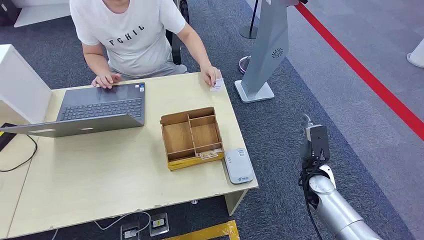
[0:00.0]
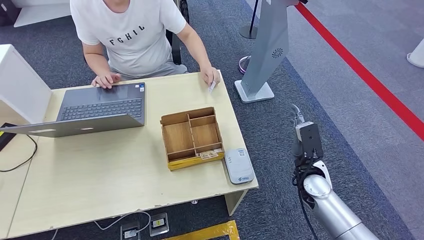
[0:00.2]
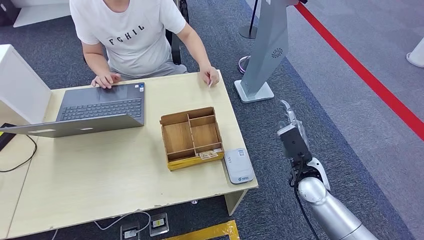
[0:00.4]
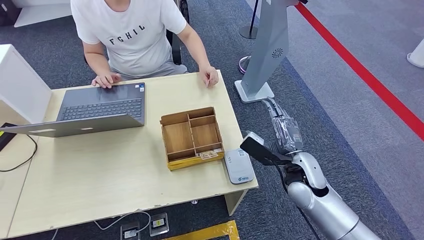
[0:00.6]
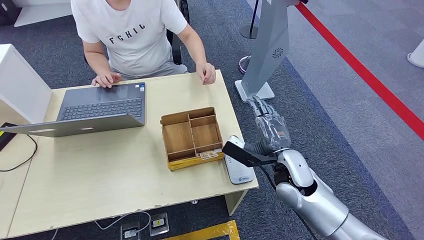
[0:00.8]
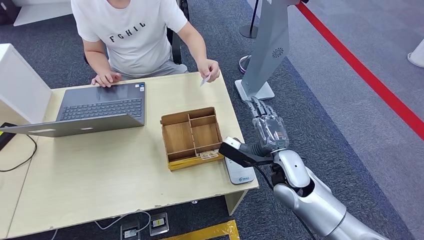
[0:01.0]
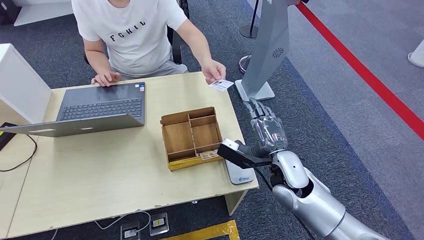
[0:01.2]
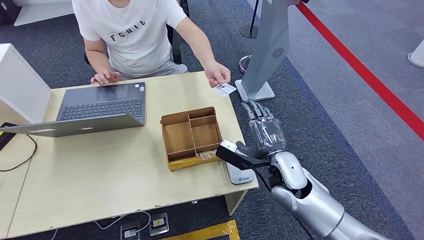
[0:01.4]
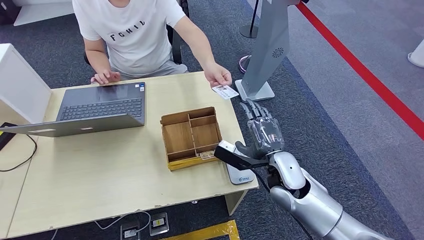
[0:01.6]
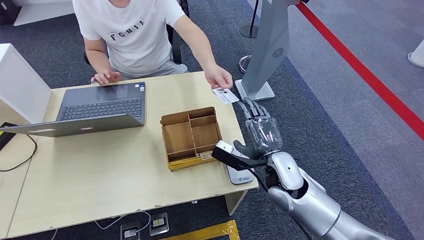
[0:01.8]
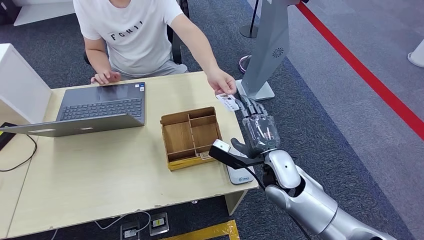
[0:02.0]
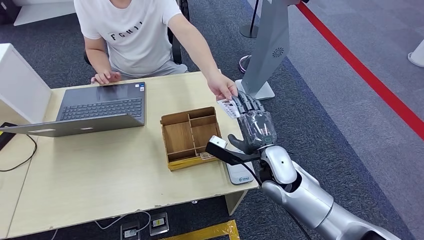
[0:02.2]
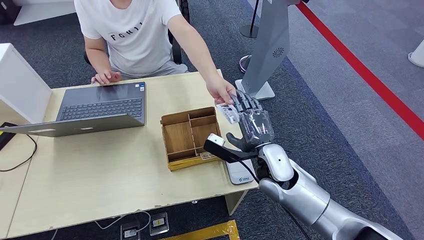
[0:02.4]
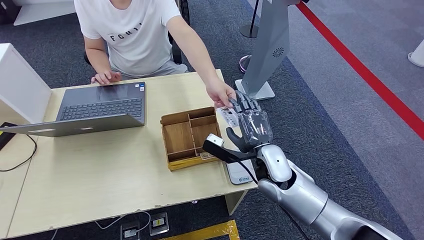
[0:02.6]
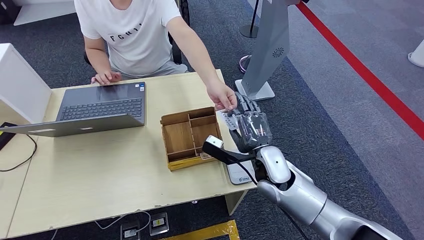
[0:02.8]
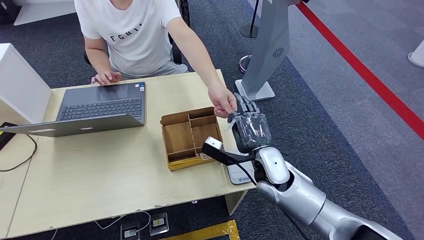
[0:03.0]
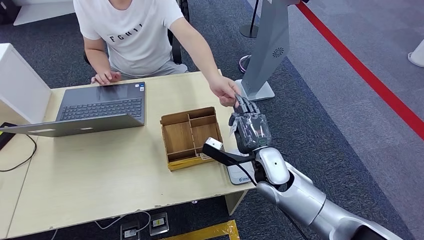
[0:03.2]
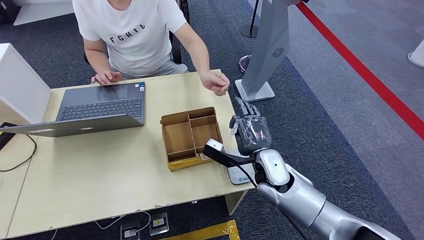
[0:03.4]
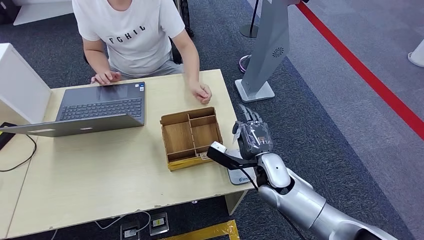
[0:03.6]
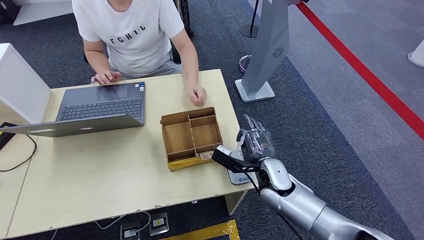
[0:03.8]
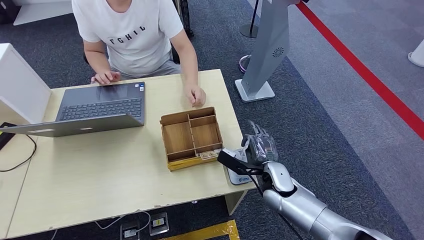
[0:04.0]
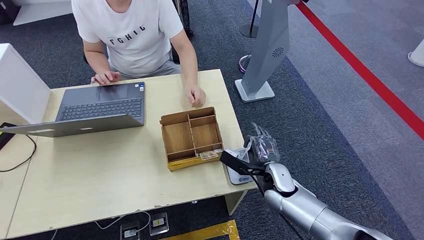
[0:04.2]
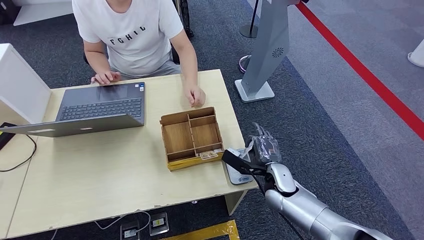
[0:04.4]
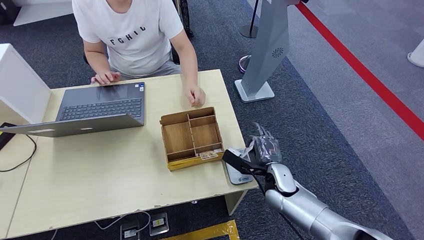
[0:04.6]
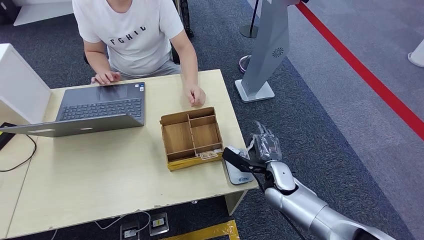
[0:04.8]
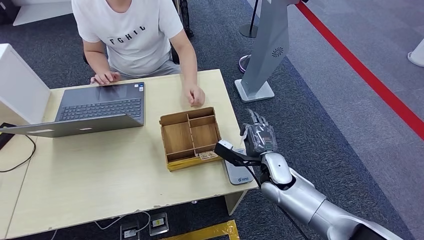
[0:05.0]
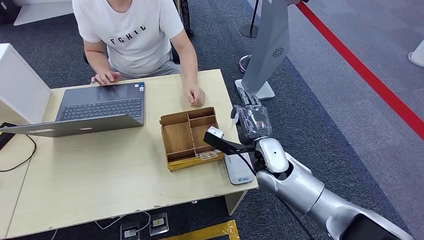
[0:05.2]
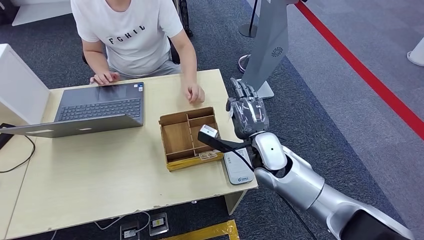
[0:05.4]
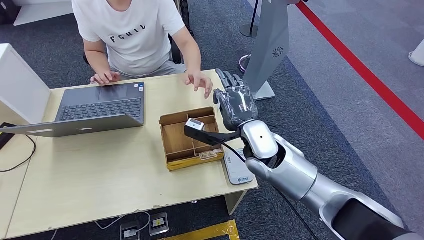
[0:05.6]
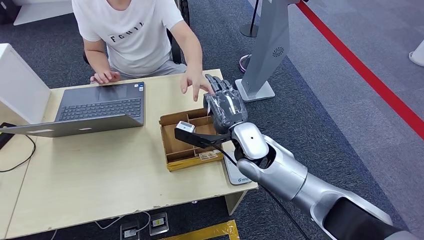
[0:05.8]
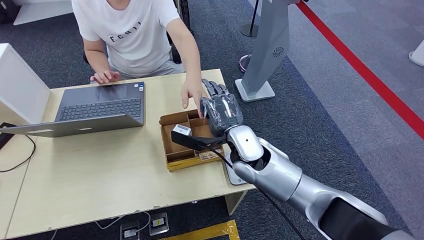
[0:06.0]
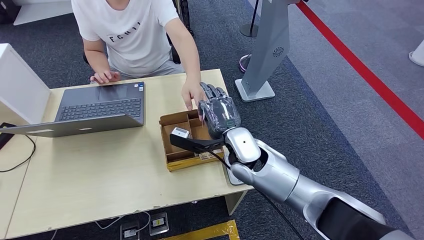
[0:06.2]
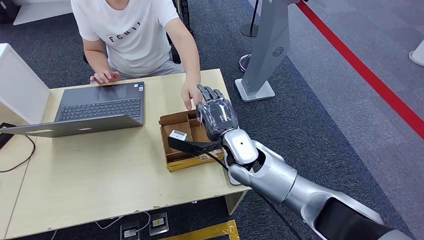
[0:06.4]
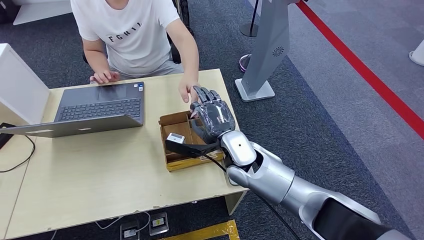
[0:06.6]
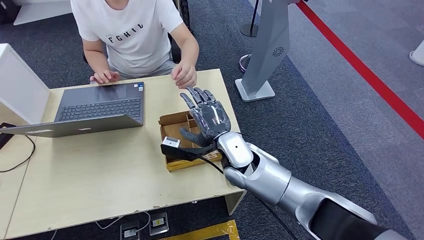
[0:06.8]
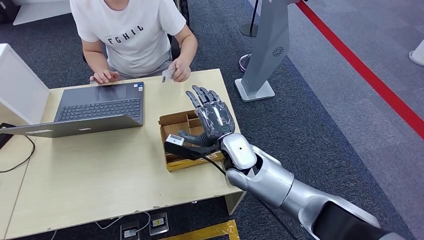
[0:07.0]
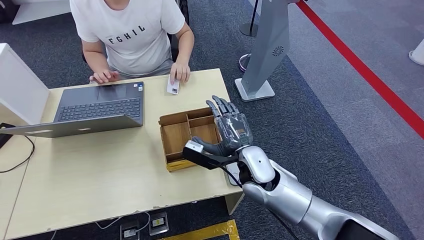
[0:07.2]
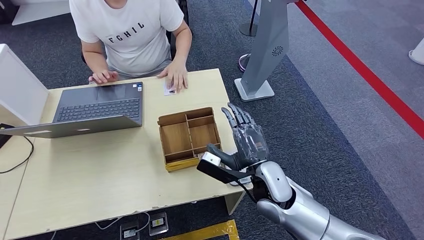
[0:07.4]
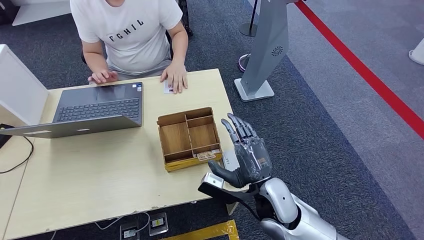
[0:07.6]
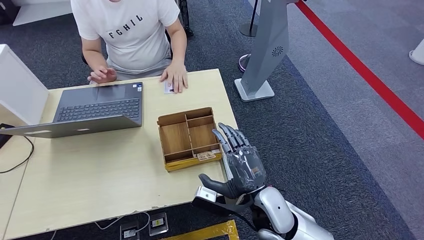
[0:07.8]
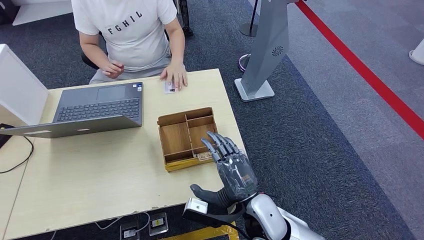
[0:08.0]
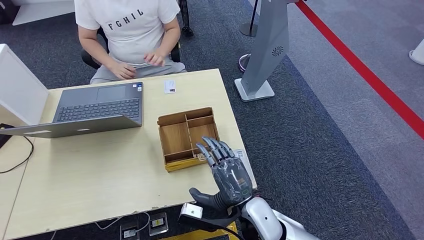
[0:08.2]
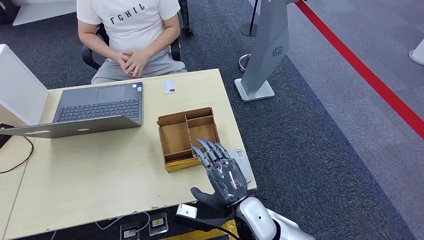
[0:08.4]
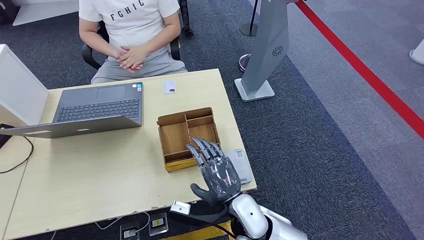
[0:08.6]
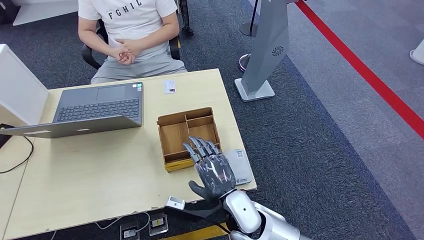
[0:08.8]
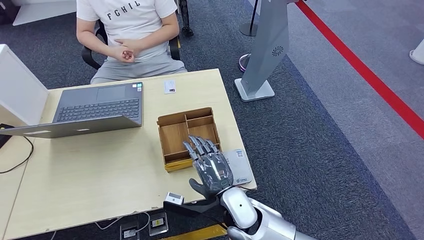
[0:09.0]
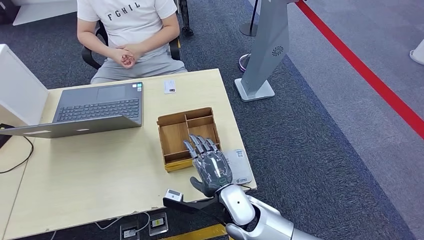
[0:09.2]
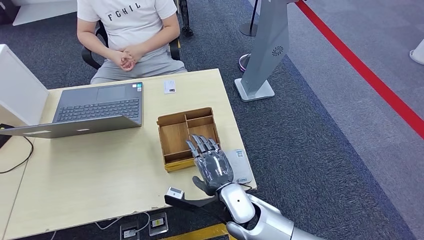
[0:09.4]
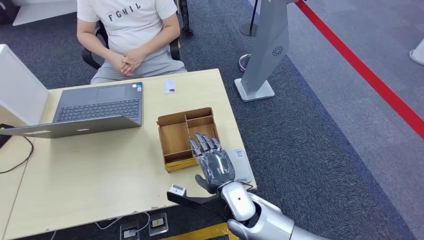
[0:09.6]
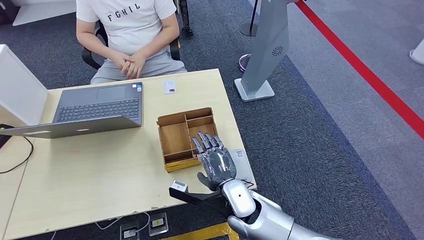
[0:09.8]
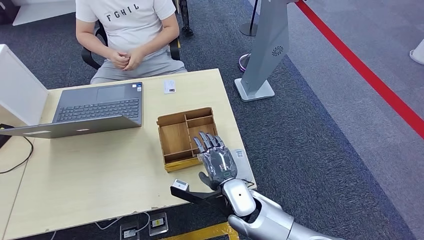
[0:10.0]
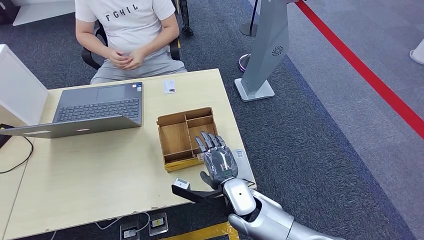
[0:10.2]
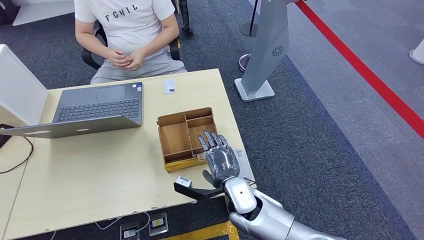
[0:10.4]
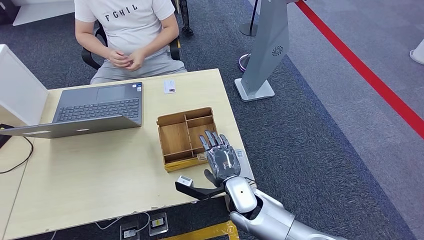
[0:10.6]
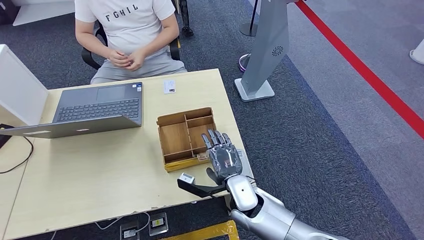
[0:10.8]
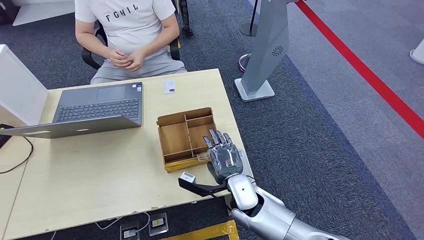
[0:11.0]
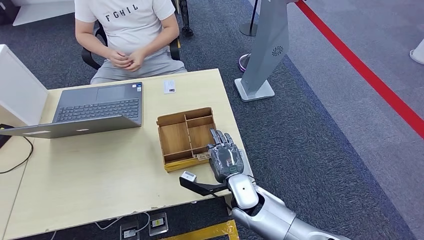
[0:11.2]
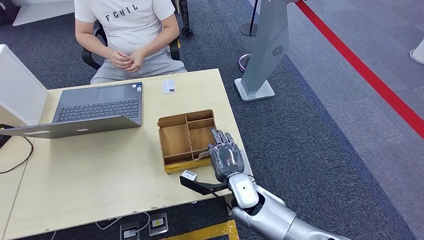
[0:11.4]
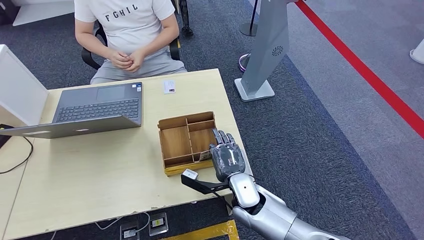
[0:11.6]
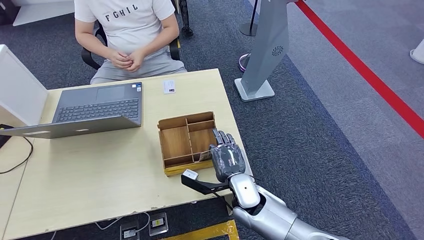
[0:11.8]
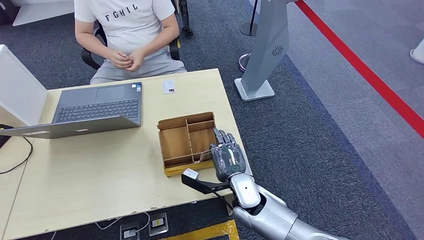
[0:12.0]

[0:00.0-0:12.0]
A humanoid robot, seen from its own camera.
Step, 0:00.0 to 0:03.0: Take the ID card from the person's hand.
Step, 0:03.2 to 0:05.4: Place the ID card on the card reader.
Step, 0:05.6 to 0:06.8: Hand the ID card to the person.
0:01.6 to 0:03.0: The hands stay close to where they were, moving slightly.
0:03.0 to 0:04.4: The right hand goes approximately 10 cm downward.
0:04.4 to 0:06.0: The right hand shifts about 20 cm upward and to the left.
0:06.0 to 0:07.6: The right hand travels backward and downward by about 15 cm.
0:07.6 to 0:09.0: The right hand is displaced to the left by about 10 cm.
0:09.0 to 0:12.0: The hands make only small movements.

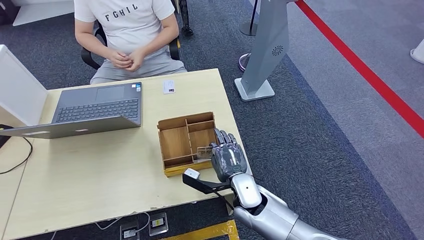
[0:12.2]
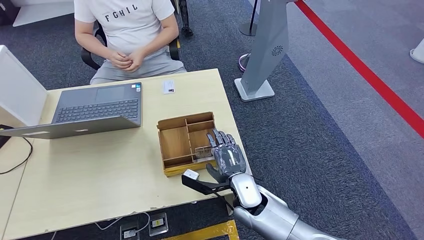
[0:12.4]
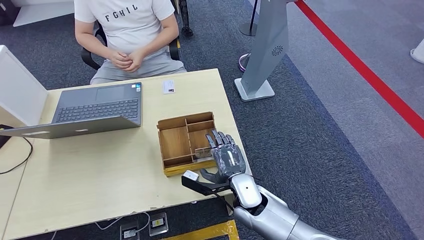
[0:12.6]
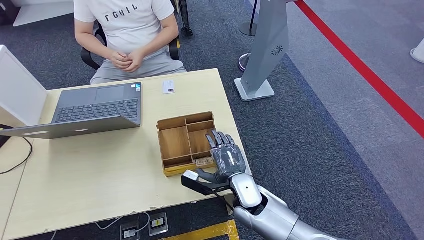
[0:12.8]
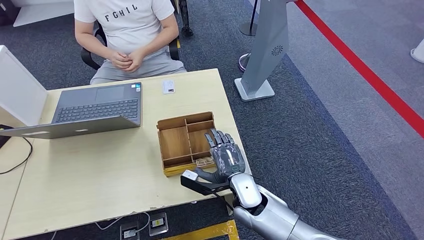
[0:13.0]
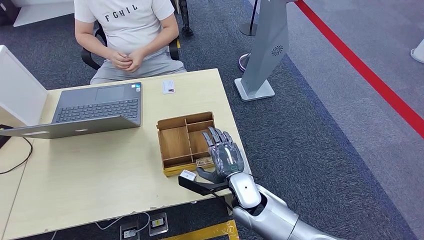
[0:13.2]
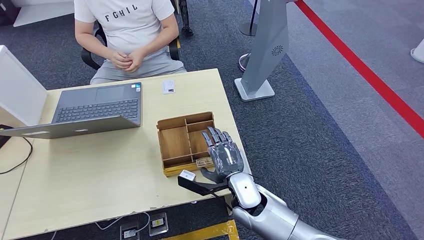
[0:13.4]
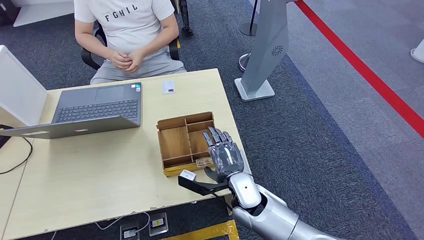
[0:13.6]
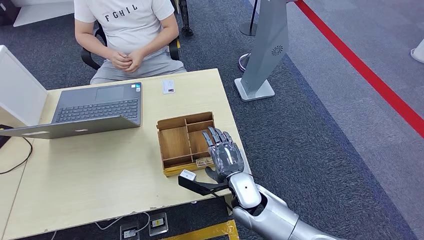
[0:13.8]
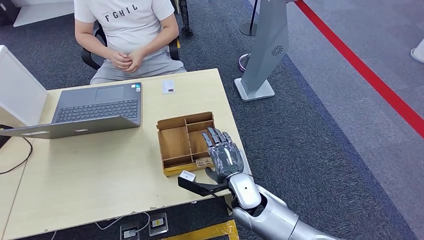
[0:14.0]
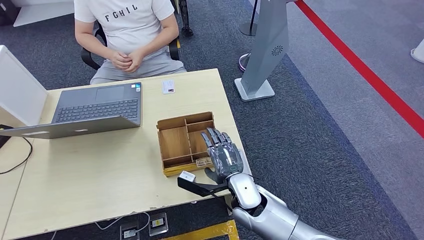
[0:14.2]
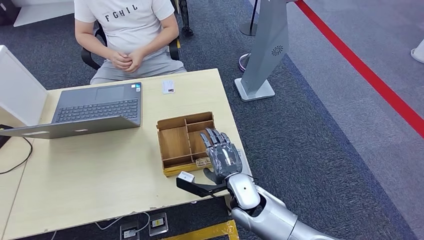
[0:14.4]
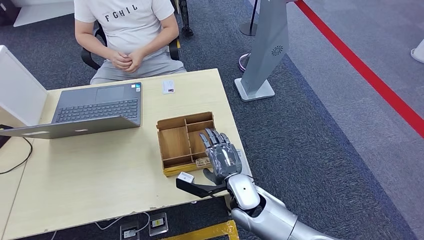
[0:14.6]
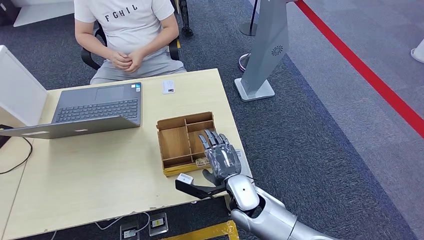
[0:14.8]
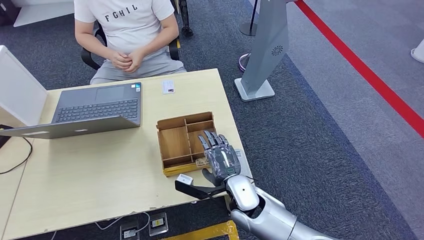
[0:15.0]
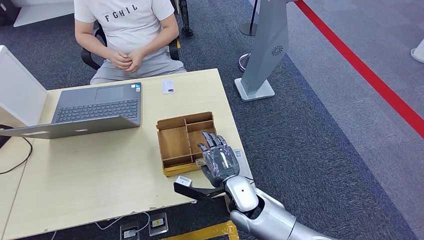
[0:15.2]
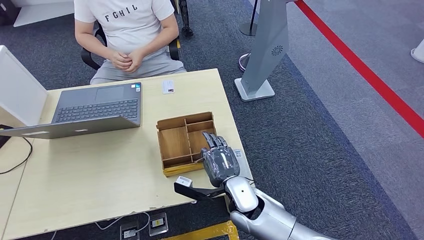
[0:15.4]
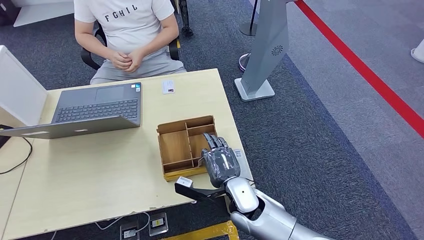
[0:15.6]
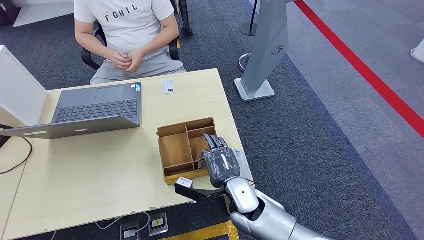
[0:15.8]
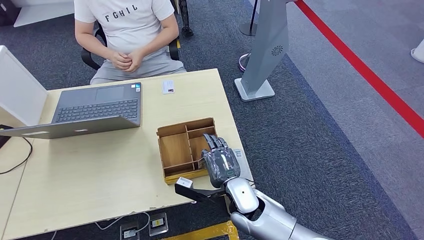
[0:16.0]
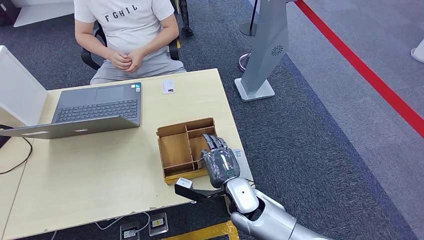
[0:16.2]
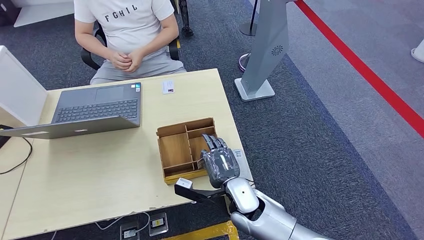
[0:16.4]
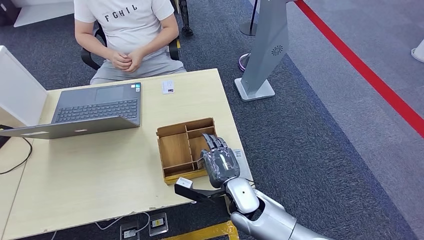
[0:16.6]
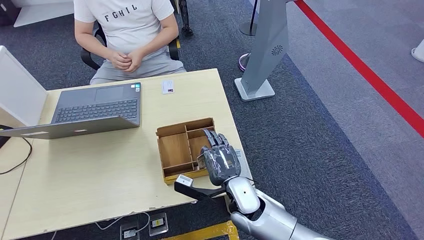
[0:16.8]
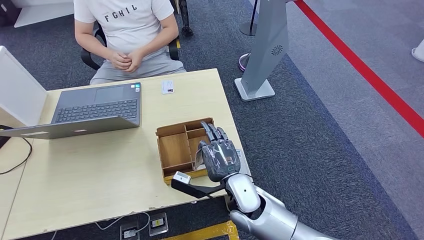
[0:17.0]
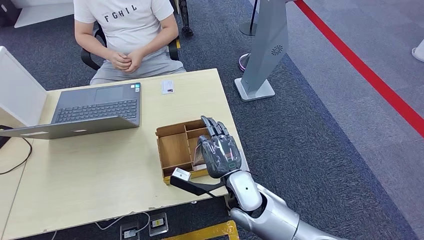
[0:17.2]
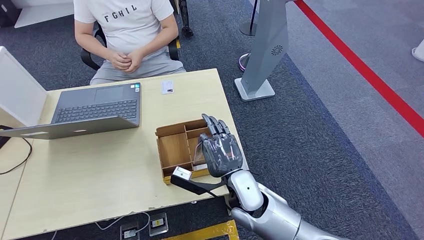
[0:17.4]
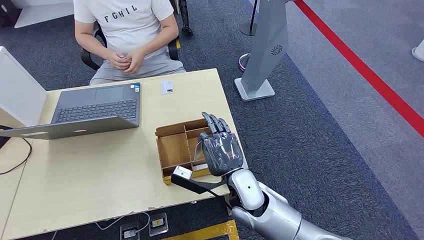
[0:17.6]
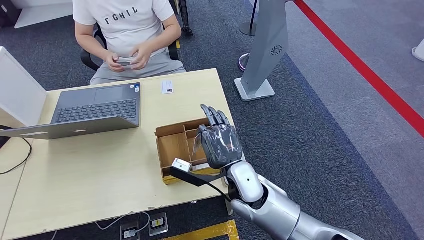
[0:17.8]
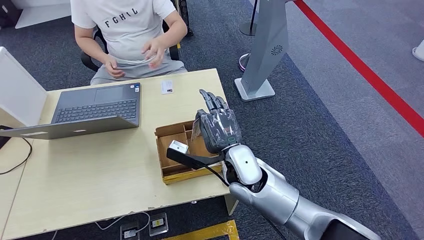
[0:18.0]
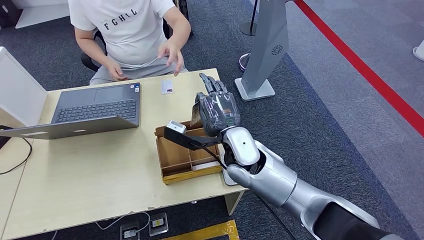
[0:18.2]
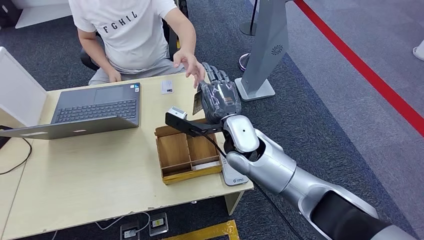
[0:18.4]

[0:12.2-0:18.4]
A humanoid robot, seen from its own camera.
Step, 0:12.2 to 0:17.8: Pick up the room key from the key card box.
0:12.2 to 0:13.8: There are only small adjustments of the hands.
0:13.8 to 0:16.8: Neither hand changes place.
